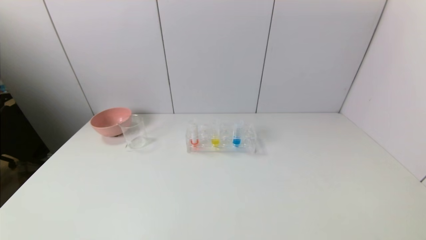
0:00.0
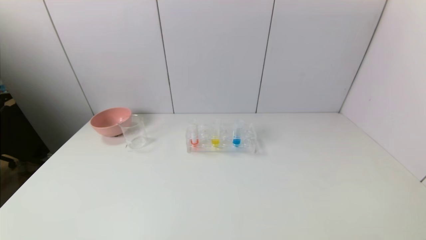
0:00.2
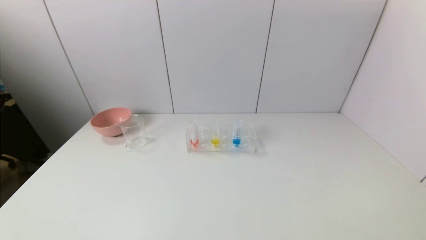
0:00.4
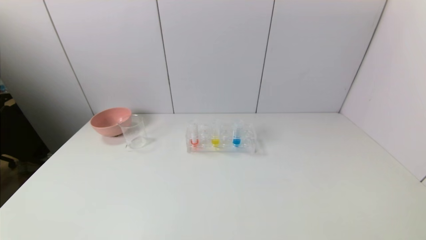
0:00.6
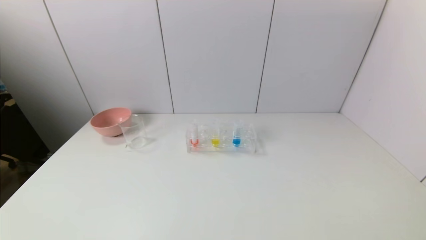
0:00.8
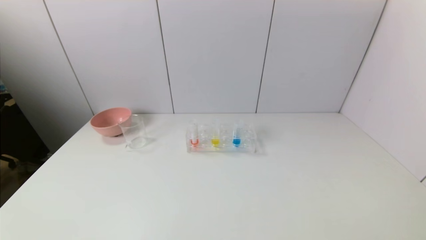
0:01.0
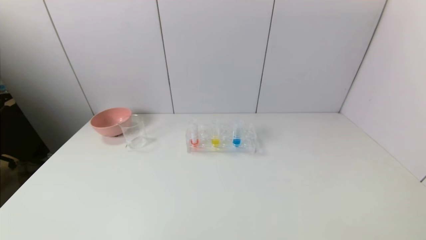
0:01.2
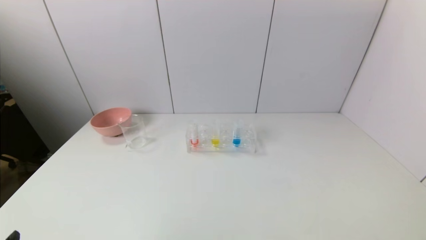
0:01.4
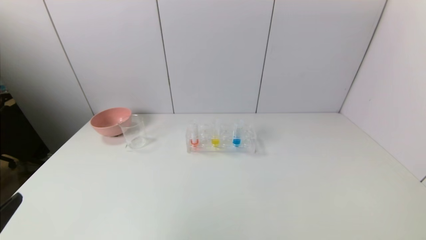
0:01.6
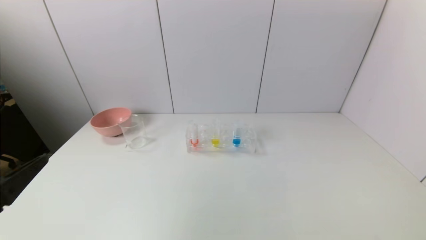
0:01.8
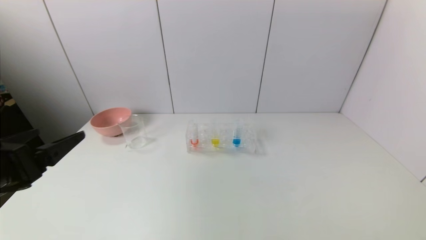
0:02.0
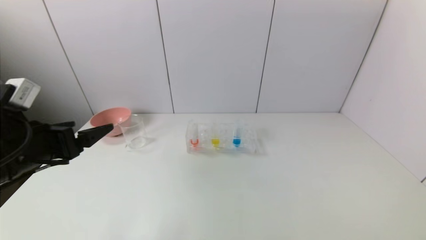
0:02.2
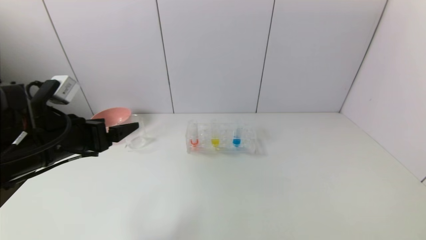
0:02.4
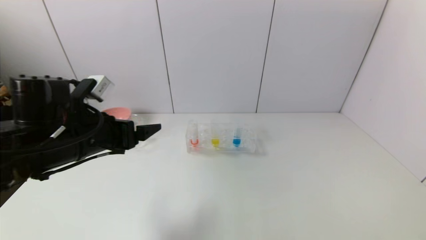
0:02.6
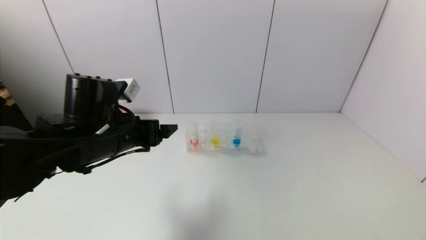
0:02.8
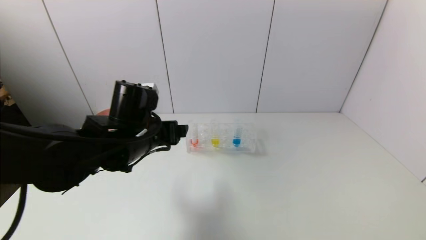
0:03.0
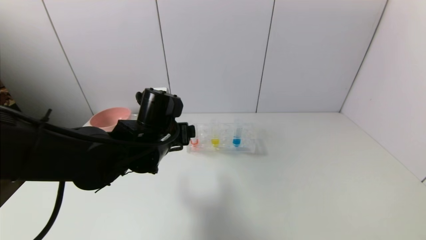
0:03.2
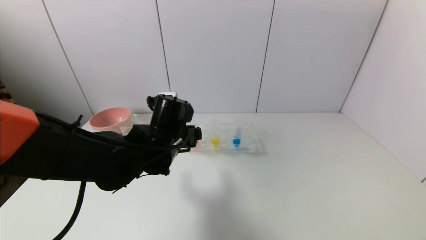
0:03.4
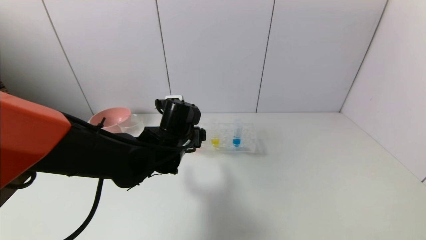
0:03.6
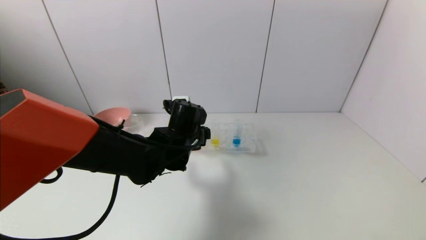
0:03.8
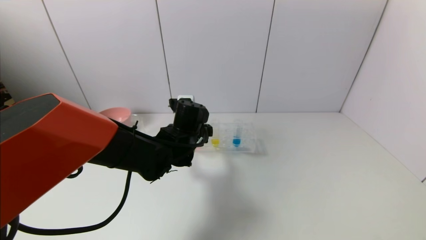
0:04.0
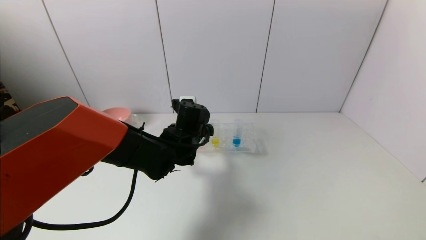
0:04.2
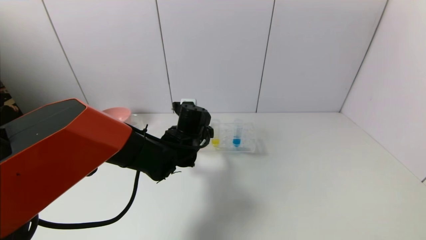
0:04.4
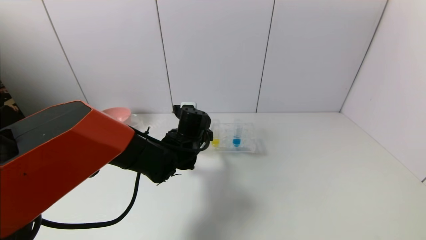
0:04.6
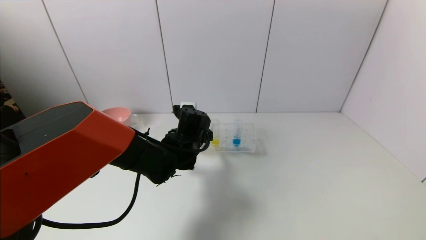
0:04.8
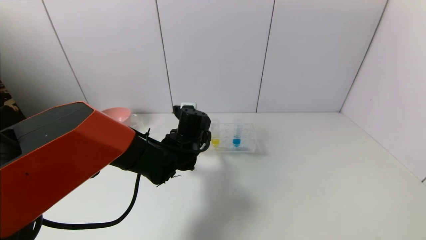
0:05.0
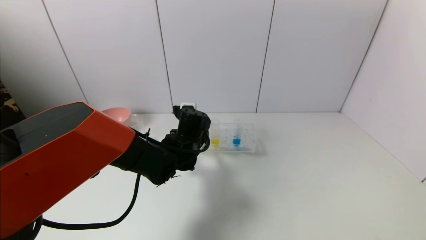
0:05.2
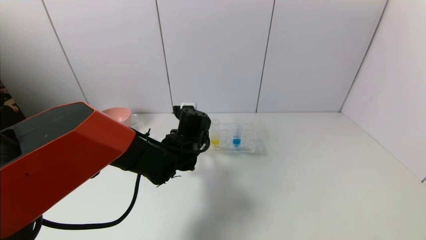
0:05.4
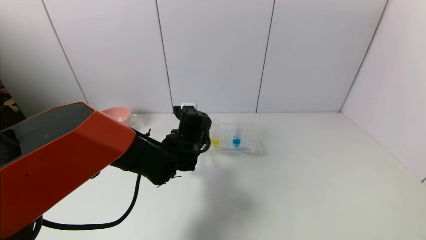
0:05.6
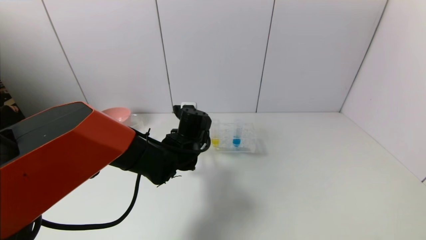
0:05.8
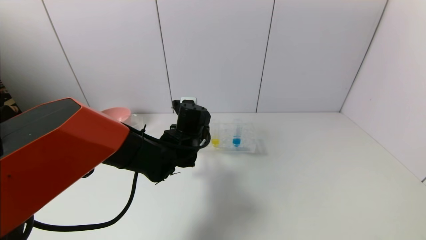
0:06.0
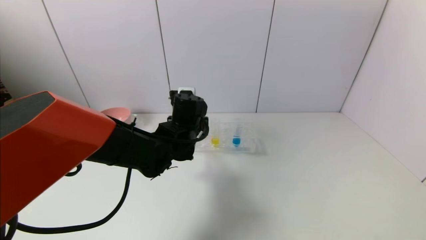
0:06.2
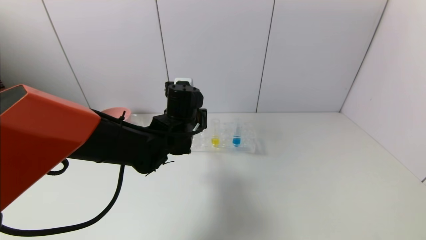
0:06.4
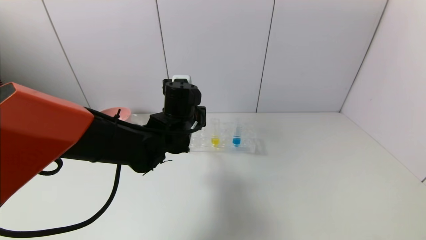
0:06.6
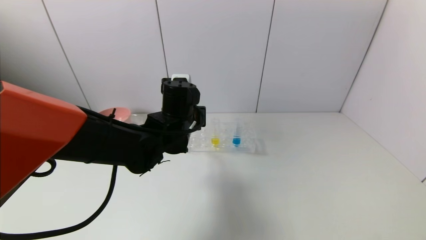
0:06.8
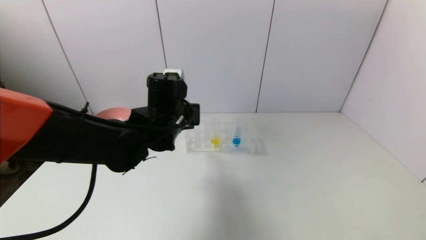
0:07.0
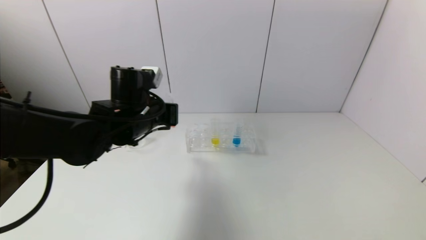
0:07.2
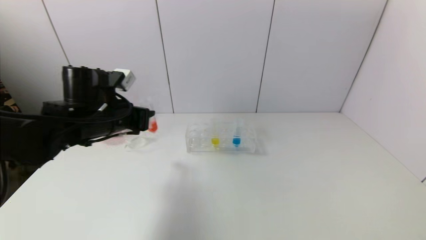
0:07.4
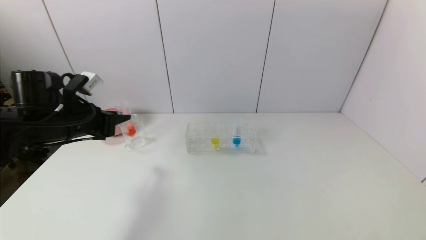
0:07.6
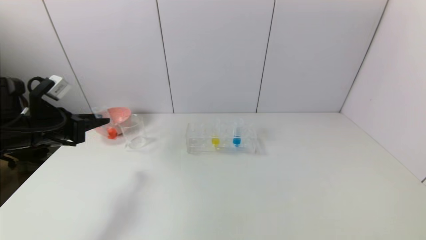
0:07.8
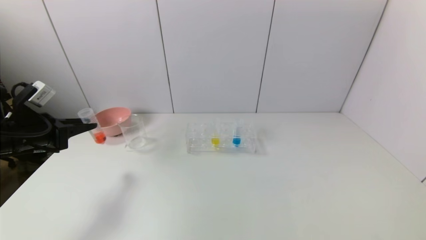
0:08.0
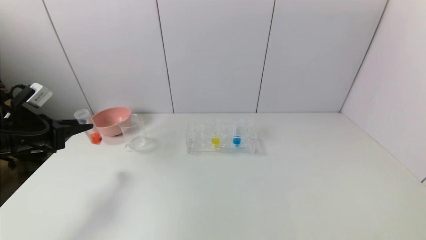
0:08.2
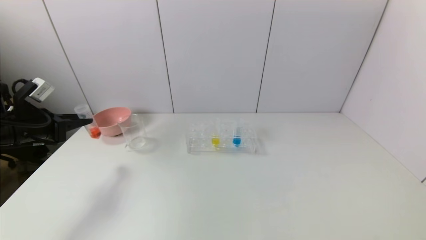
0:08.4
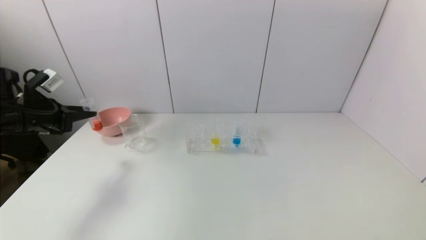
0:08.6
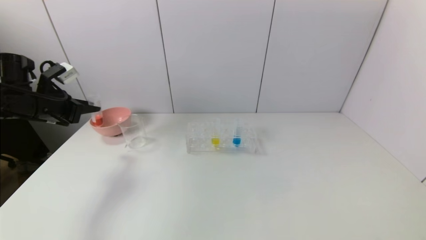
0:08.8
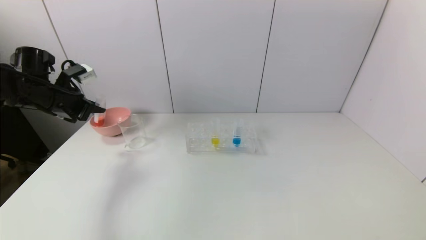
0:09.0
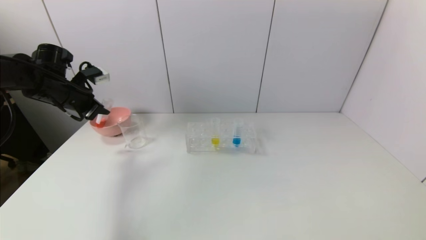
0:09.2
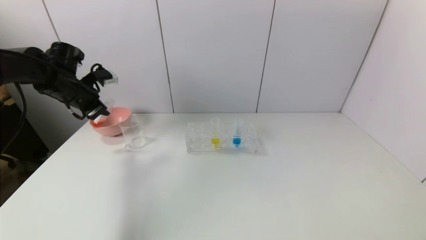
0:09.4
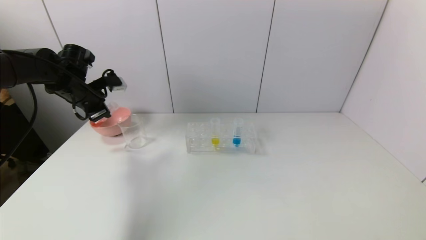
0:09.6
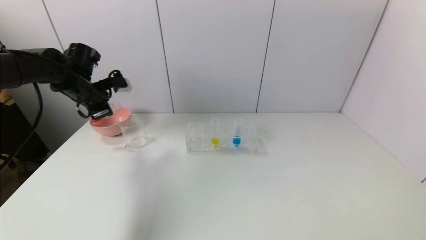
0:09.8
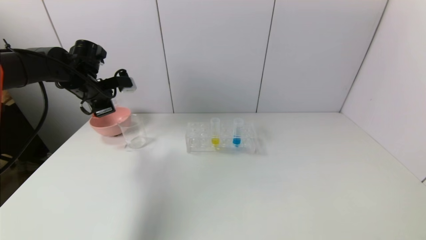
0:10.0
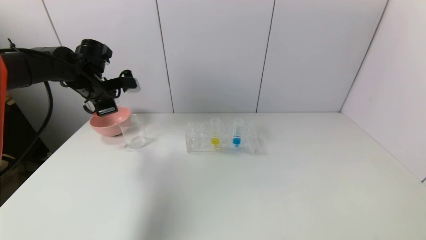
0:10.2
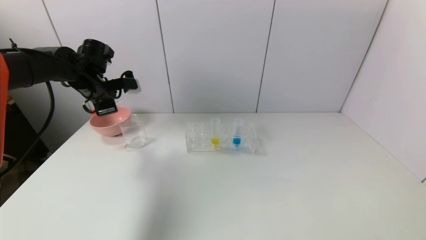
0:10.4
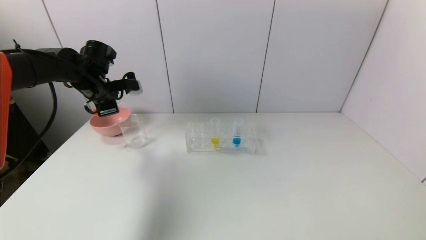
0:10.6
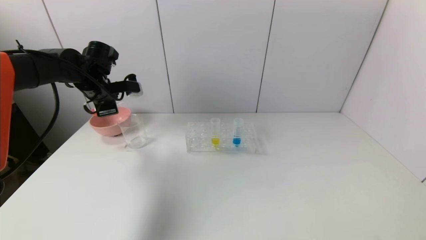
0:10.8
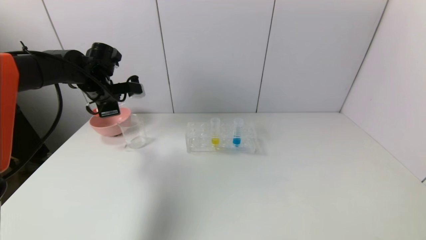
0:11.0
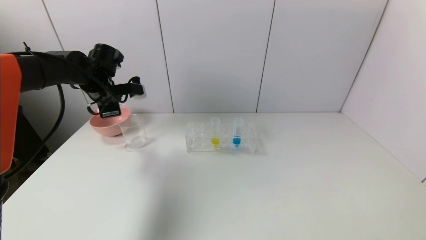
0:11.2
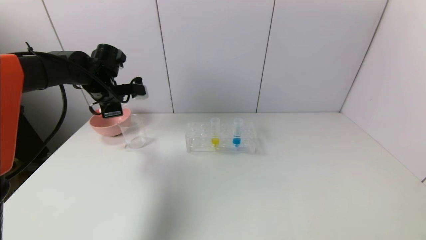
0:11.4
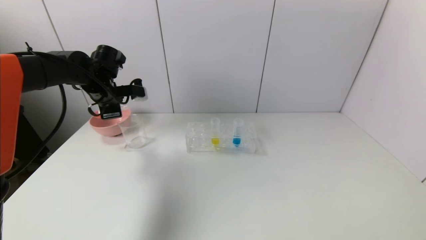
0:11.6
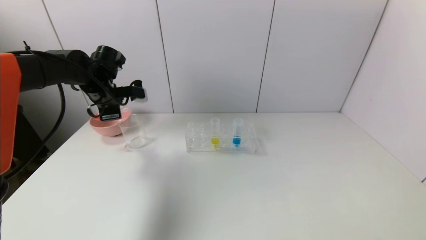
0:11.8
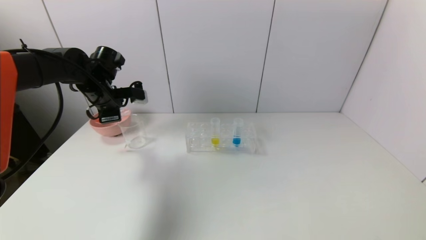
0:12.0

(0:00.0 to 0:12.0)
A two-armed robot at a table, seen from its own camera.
Task of the whole recording: pick up the test tube with red pigment and the test tube with blue pigment by grippers and pour them into the container.
Step, 0:00.0 - 0:05.4: Grasp the red reagent with the left gripper.
0:01.6 - 0:03.0: The left gripper shifts some 30 cm forward and to the right.
0:03.0 - 0:04.4: The left gripper is displaced forward, downward and to the right by about 15 cm.
0:04.4 - 0:06.0: The left gripper closes its fingers.
0:06.0 - 0:07.6: The left gripper travels to the left by approximately 25 cm.
0:07.6 - 0:09.0: The left gripper is displaced forward and to the left by roughly 10 cm.
0:09.0 - 0:10.4: The left gripper heads to the right, covering roughly 10 cm.
0:10.4 - 0:12.0: The grippers make only small movements.

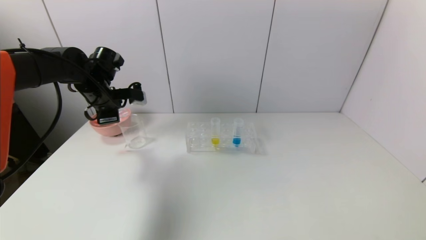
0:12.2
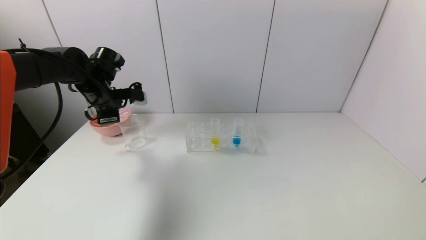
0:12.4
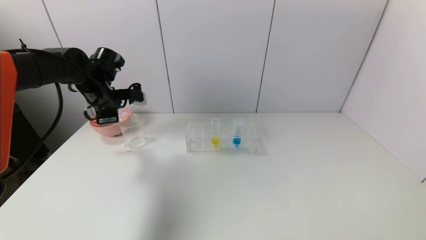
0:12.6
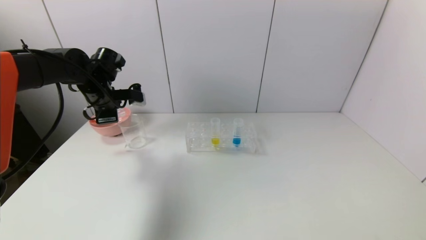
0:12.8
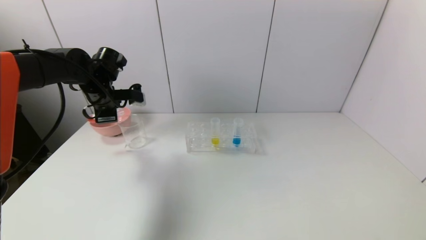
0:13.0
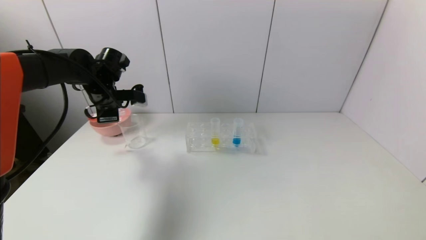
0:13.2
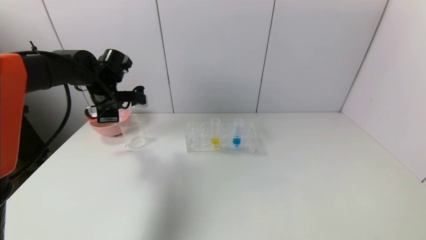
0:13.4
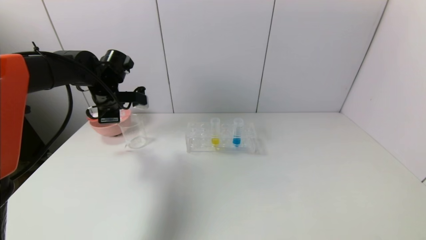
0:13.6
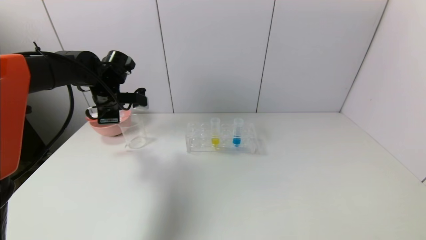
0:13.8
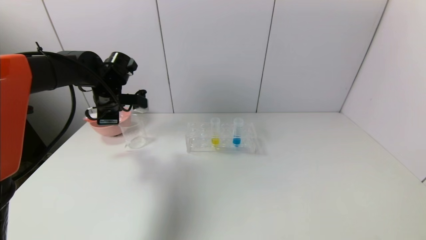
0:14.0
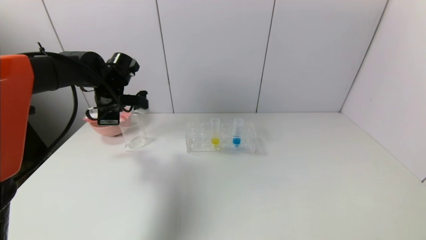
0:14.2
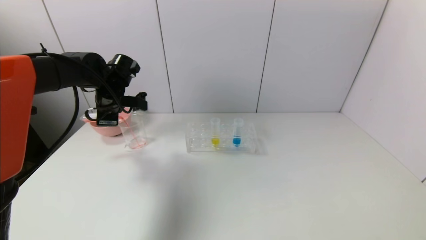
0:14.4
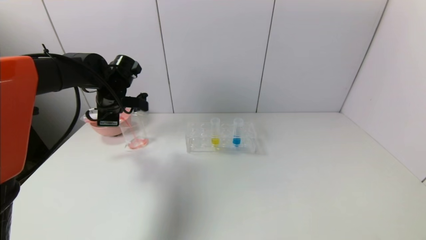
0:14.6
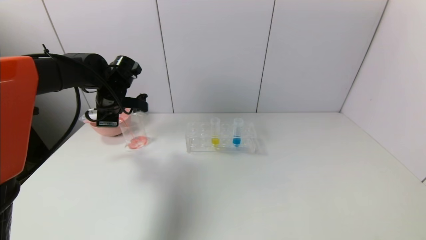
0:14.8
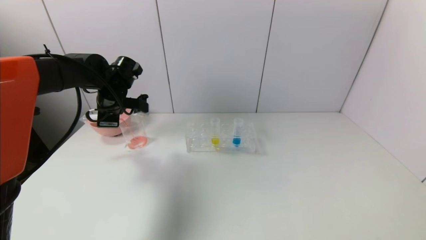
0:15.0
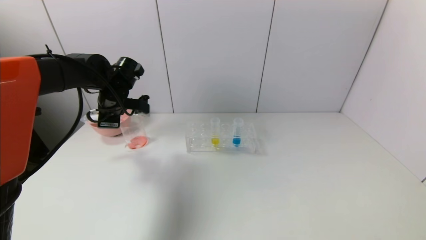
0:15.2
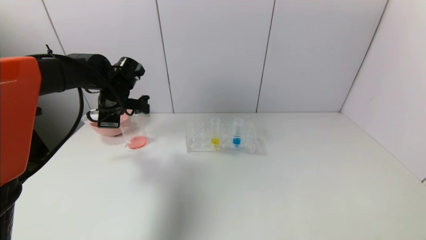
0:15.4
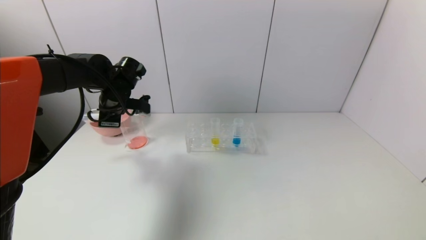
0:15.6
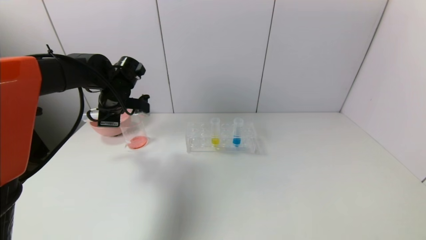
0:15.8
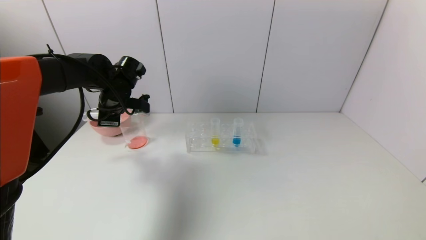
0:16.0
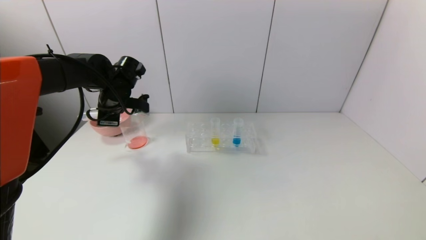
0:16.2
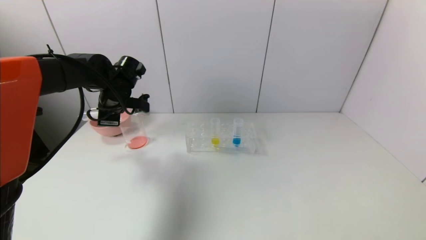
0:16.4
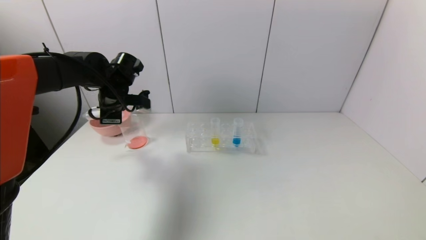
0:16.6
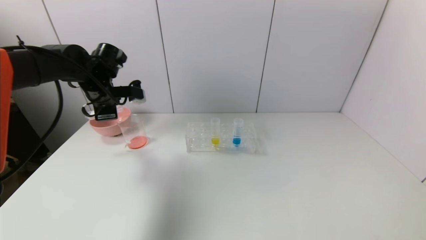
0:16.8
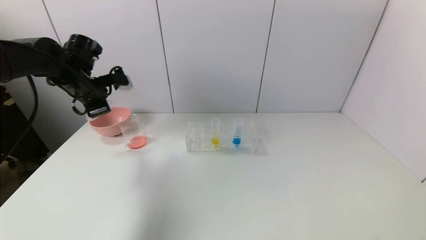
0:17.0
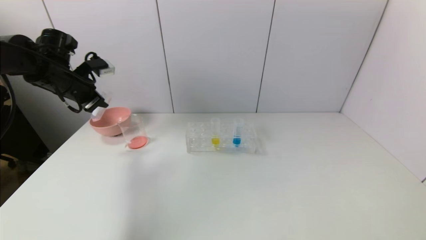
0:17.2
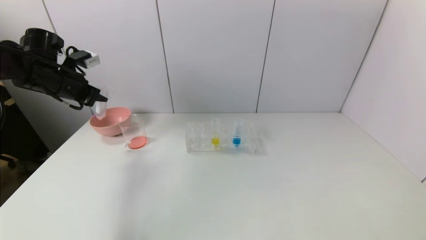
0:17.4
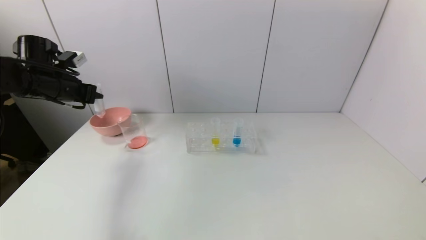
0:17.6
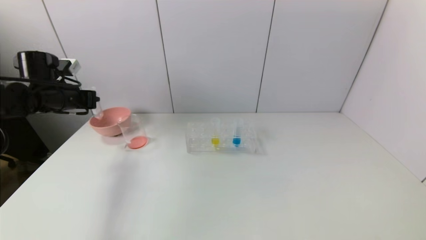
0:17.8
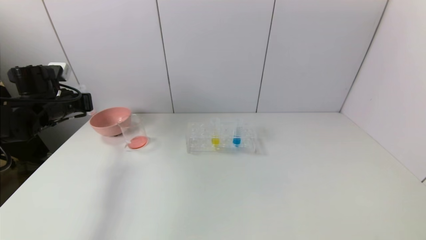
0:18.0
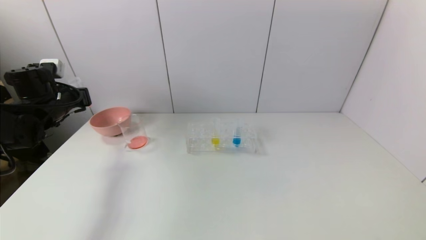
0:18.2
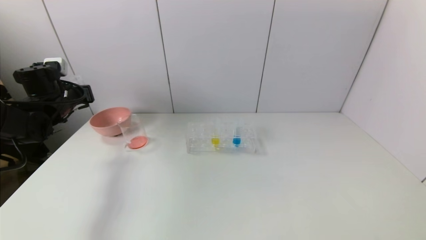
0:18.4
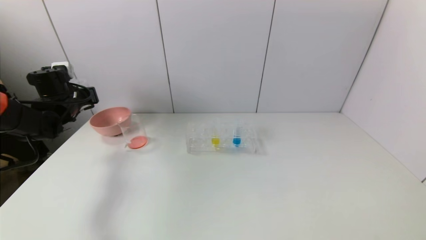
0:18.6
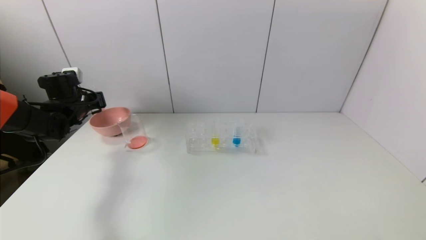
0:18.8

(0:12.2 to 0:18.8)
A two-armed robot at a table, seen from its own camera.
Task of the whole recording: pick up the test tube with red pigment and the test tube with blue pigment by grippers and pour them into the container.
Step, 0:12.2 - 0:16.6: Pour the red reagent into the graduated cylinder with the left gripper.
0:12.2 - 0:13.8: The grippers move only a little.
0:13.8 - 0:15.4: There are only small adjustments of the grippers.
0:15.4 - 0:17.2: The left gripper heads to the left and upward, covering roughly 10 cm.
0:17.2 - 0:18.8: The left gripper travels downward by approximately 10 cm.
